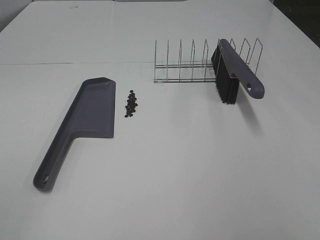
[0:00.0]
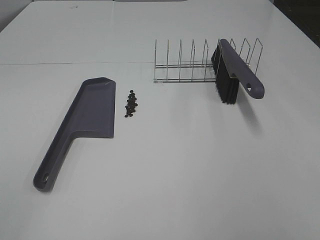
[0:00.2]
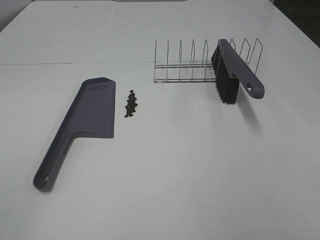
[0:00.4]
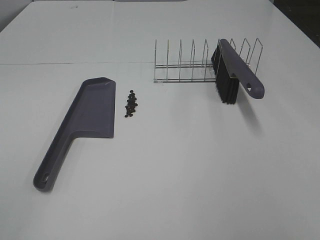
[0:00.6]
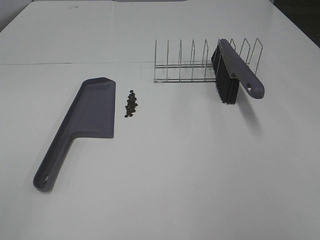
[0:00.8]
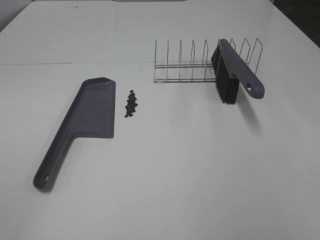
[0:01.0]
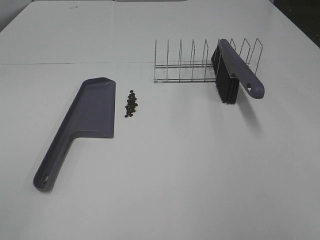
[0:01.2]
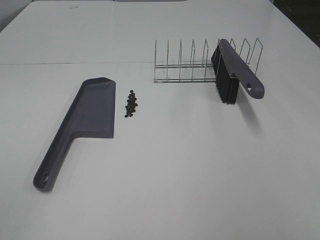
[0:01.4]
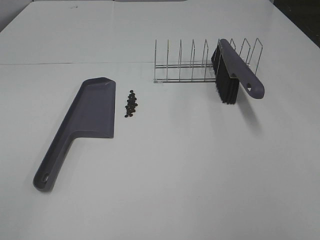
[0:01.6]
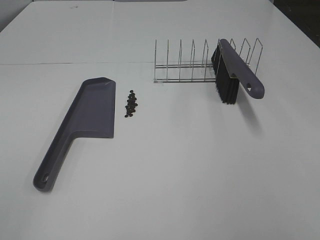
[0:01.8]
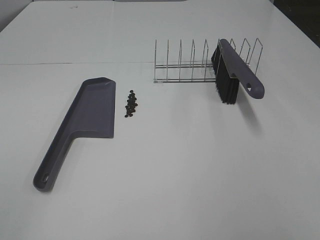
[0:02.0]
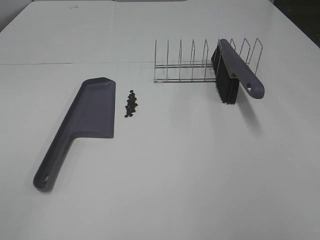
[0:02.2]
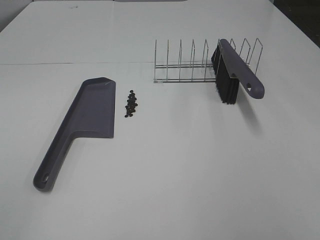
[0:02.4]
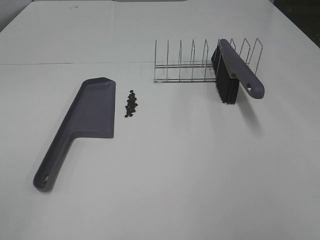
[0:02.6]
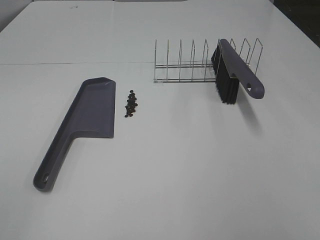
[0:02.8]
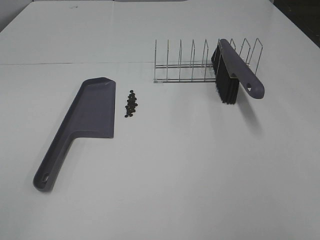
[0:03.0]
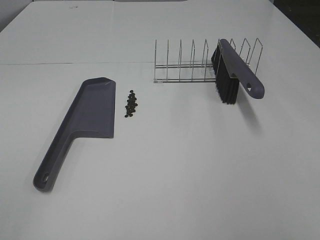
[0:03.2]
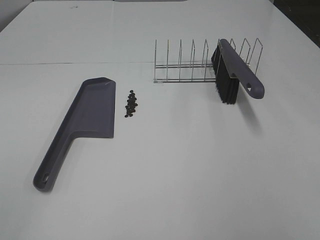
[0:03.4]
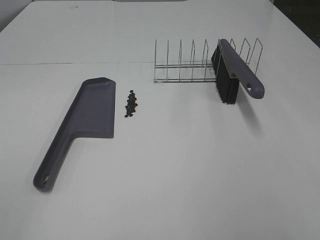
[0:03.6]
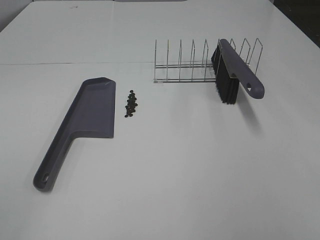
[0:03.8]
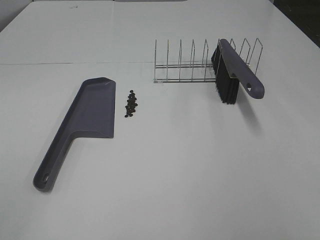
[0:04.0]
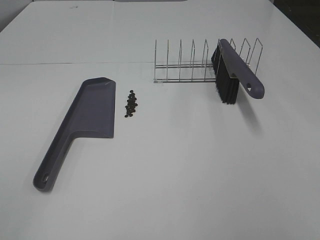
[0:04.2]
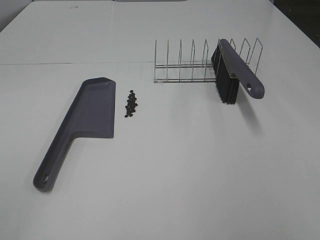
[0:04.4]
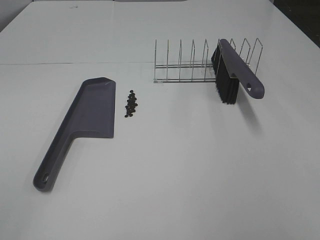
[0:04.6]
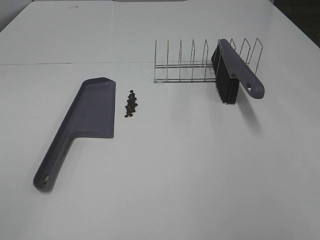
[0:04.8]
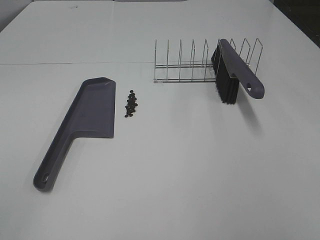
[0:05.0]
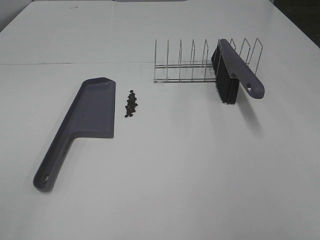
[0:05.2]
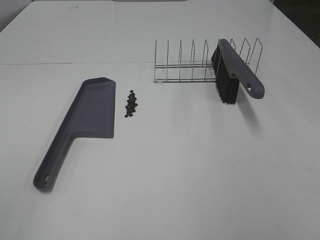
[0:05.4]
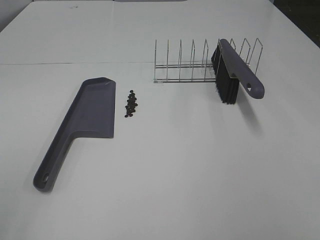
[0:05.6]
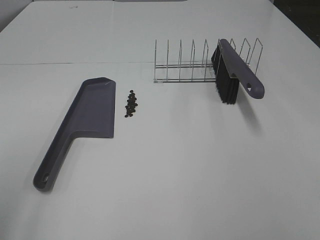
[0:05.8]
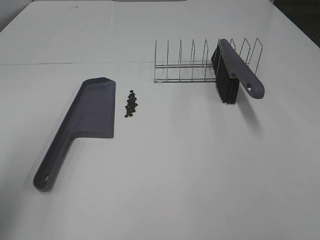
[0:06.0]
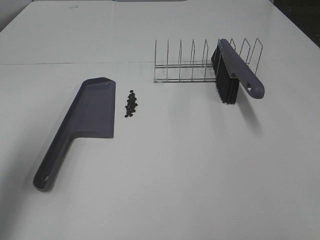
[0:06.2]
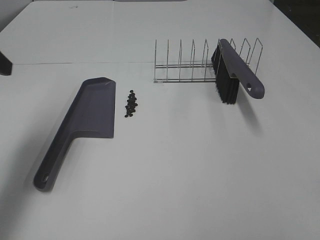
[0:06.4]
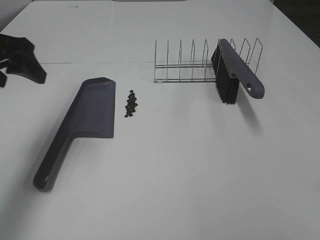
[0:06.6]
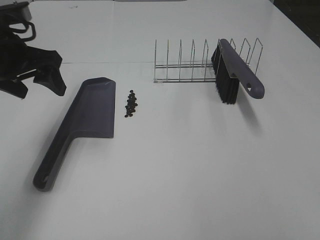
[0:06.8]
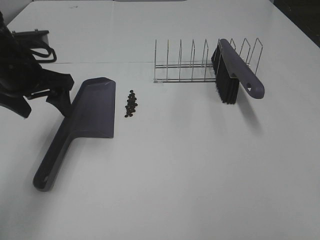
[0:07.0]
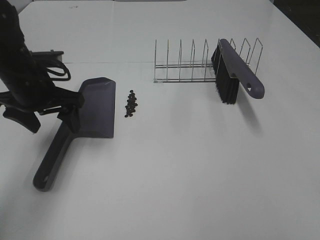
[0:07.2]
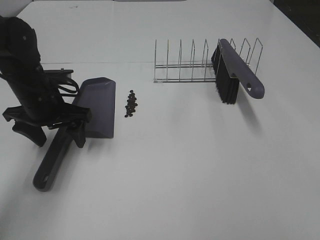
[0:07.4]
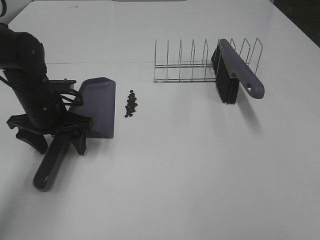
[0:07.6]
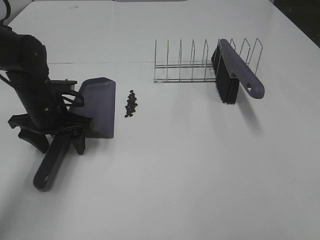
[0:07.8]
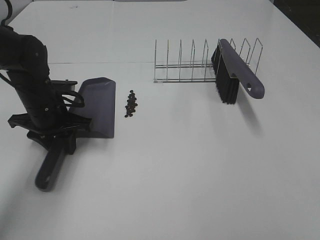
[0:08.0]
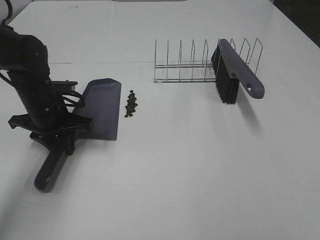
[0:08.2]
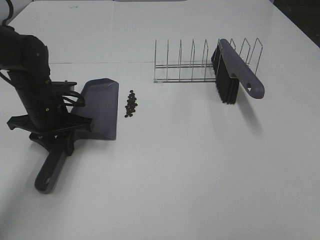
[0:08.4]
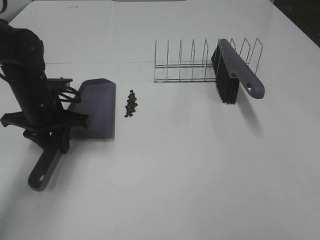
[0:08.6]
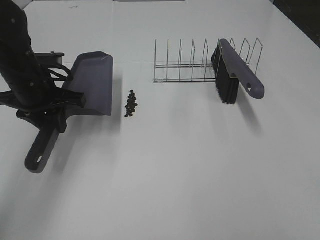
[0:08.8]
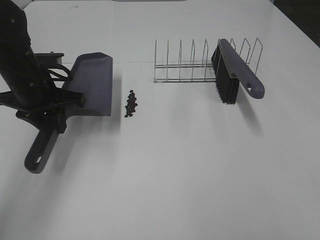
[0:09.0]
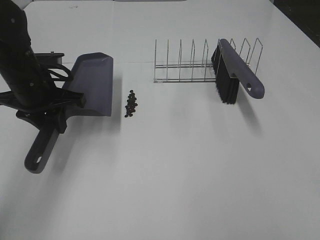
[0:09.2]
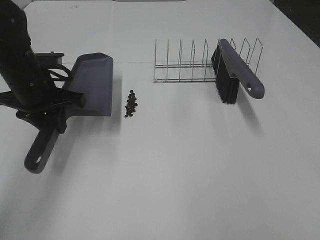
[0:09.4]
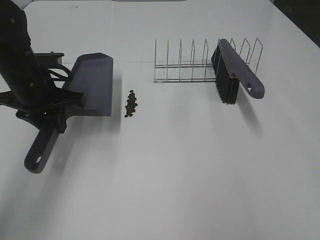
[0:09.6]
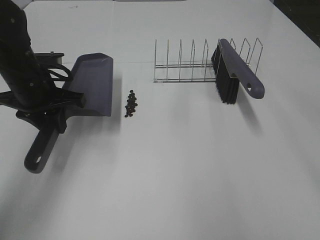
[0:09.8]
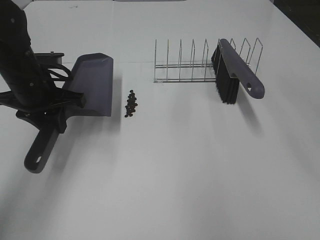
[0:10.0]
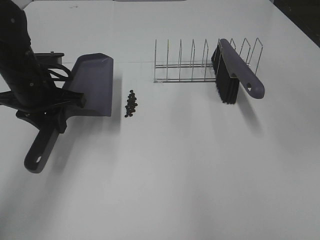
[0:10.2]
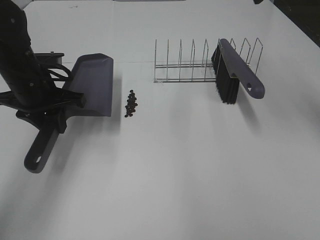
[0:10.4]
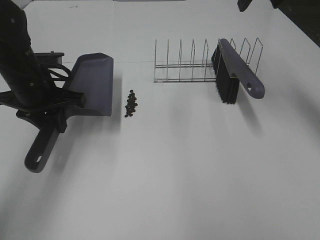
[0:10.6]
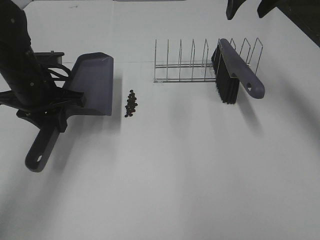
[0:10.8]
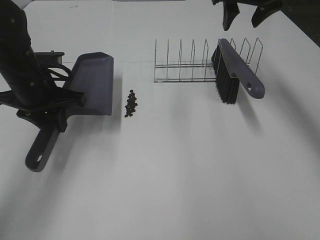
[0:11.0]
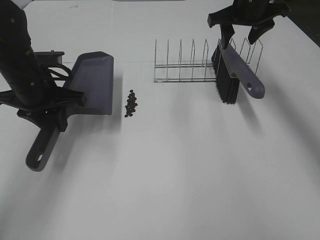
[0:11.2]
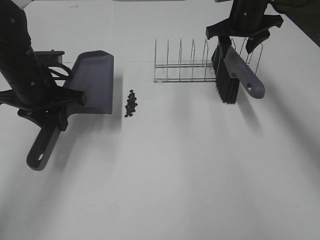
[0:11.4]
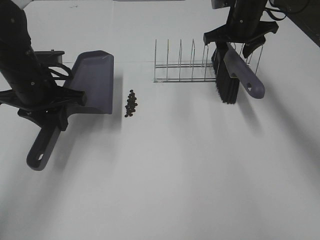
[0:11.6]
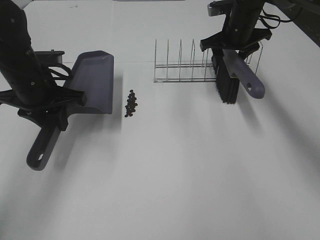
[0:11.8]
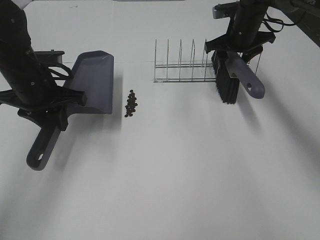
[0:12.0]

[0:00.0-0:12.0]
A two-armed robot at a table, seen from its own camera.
Task of the whole recording: Sweep Coffee Bean.
Step, 0.0 to 8.0 s: Left hand: grab the dustpan.
0.0 to 4.4 s: The two grippers keep their place.
4.4 to 6.0 s: The left gripper is displaced forward by approximately 15 cm.
6.0 to 7.6 s: The left gripper moves forward, downward and to the right, about 30 cm.
7.6 to 9.0 s: The left gripper travels upward by some 5 cm, and closes up.
9.0 to 10.4 s: The right gripper heads forward, covering roughly 40 cm.
10.4 to 12.0 s: The right gripper shifts some 25 cm downward and forward.

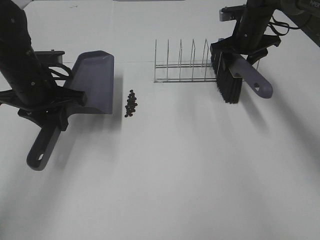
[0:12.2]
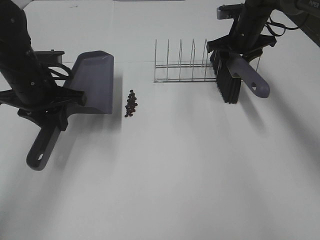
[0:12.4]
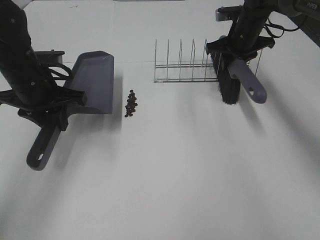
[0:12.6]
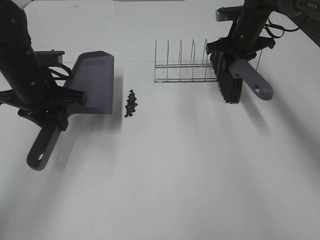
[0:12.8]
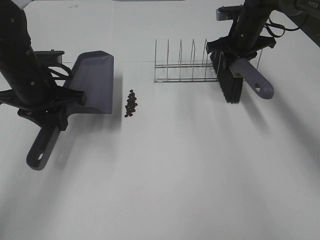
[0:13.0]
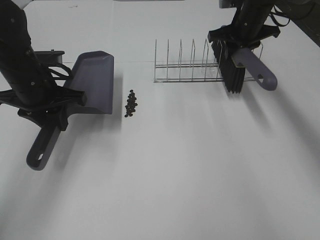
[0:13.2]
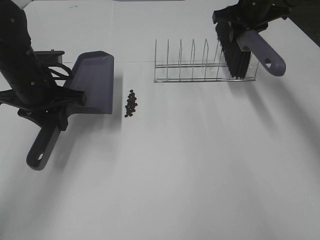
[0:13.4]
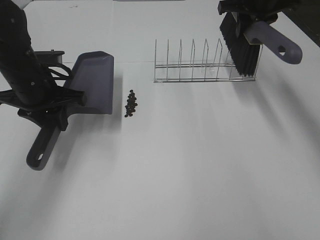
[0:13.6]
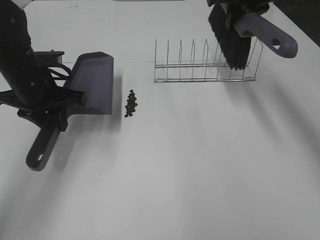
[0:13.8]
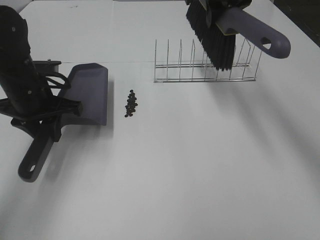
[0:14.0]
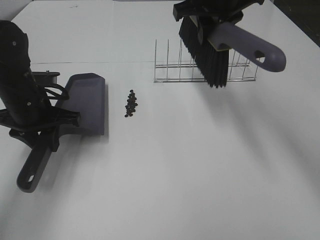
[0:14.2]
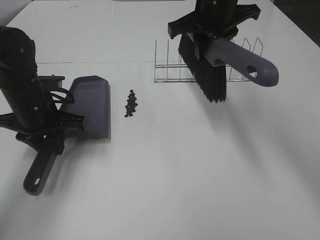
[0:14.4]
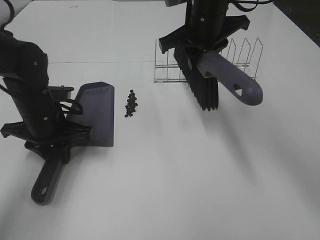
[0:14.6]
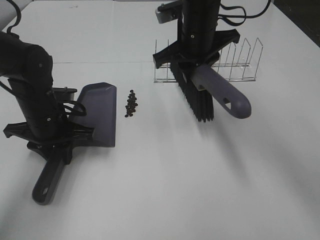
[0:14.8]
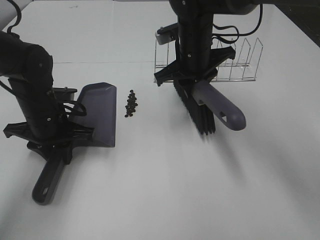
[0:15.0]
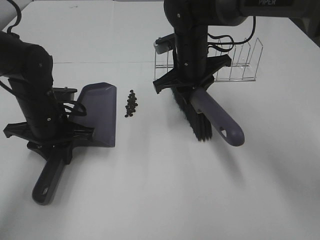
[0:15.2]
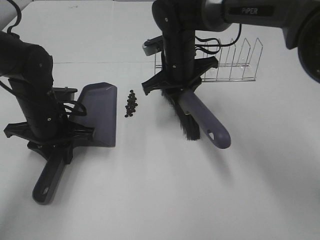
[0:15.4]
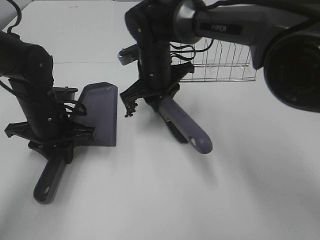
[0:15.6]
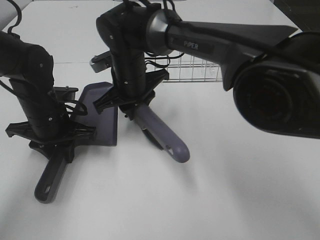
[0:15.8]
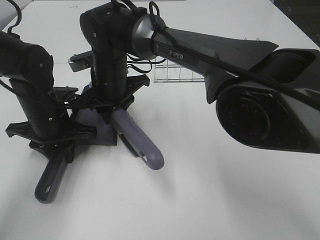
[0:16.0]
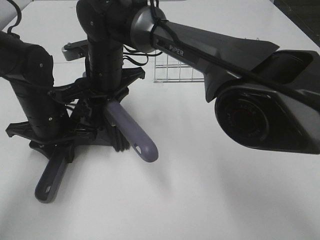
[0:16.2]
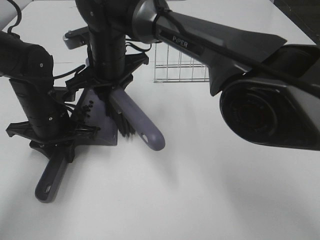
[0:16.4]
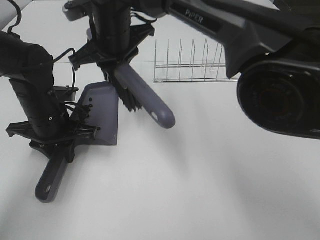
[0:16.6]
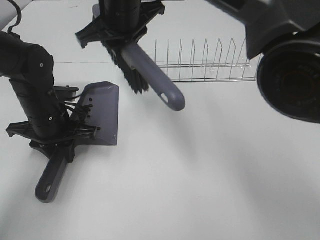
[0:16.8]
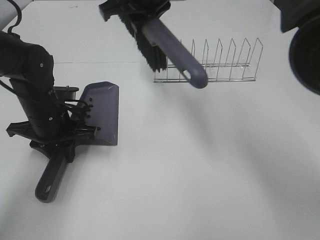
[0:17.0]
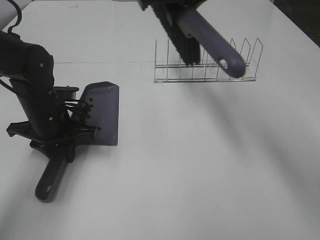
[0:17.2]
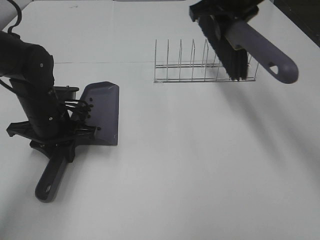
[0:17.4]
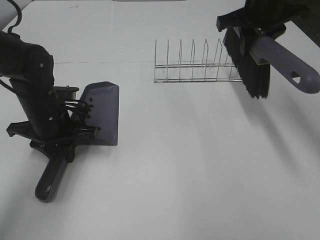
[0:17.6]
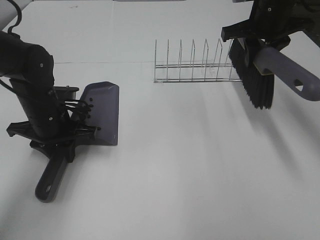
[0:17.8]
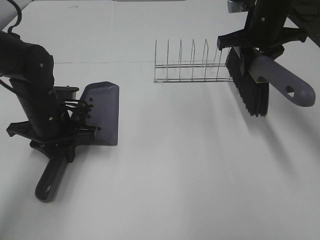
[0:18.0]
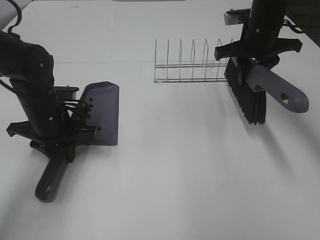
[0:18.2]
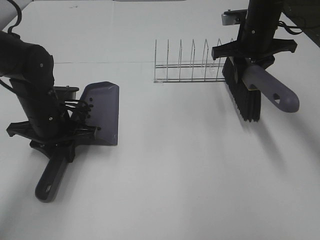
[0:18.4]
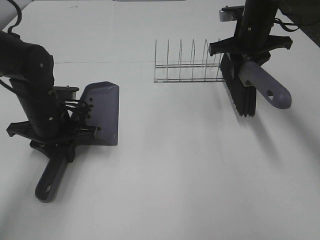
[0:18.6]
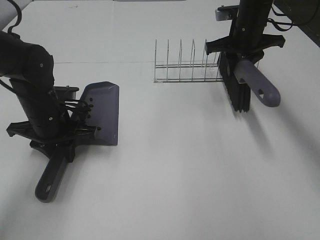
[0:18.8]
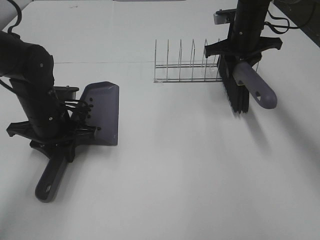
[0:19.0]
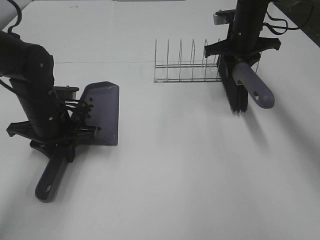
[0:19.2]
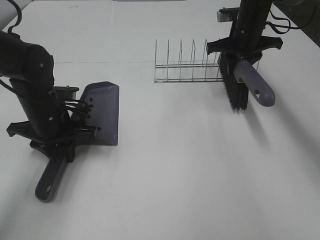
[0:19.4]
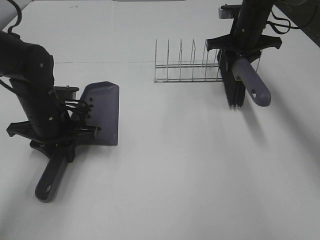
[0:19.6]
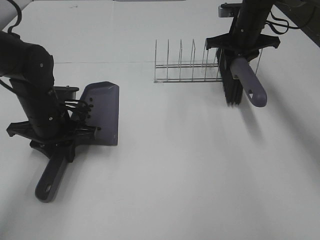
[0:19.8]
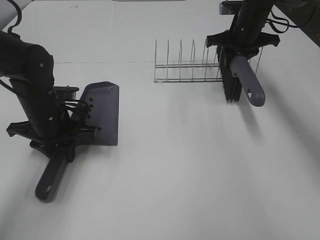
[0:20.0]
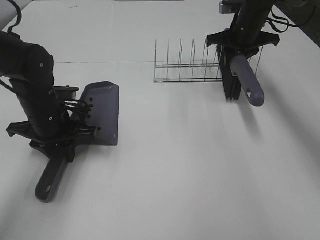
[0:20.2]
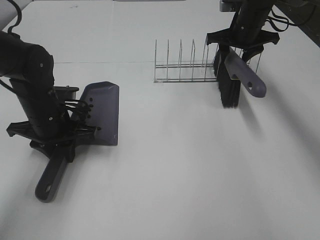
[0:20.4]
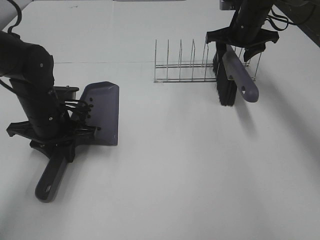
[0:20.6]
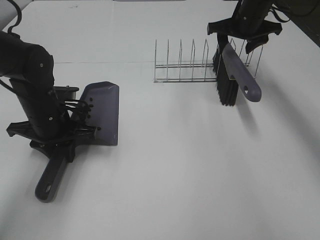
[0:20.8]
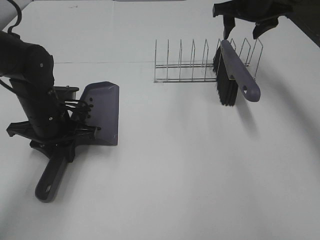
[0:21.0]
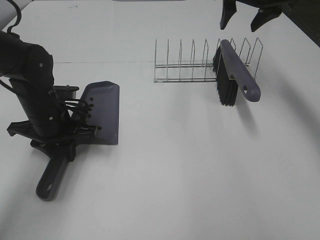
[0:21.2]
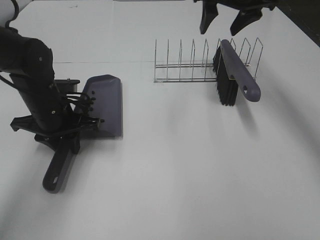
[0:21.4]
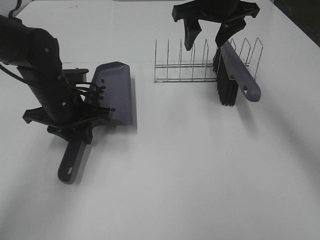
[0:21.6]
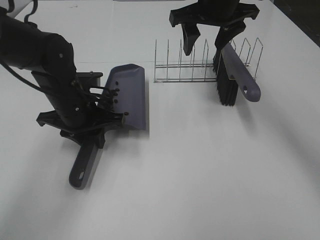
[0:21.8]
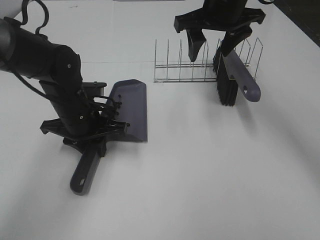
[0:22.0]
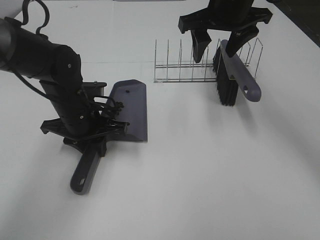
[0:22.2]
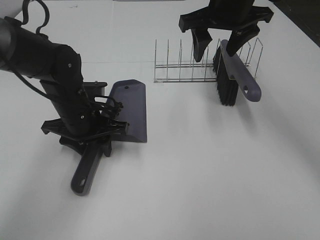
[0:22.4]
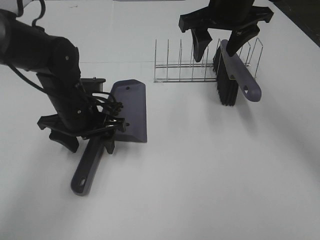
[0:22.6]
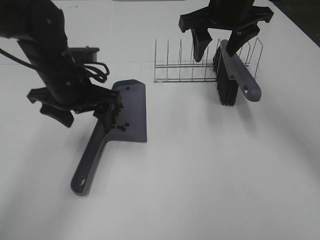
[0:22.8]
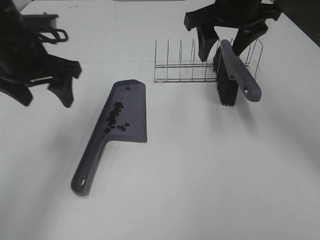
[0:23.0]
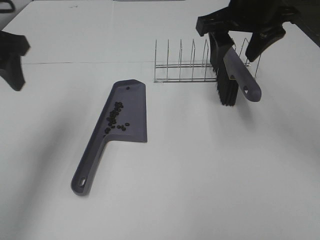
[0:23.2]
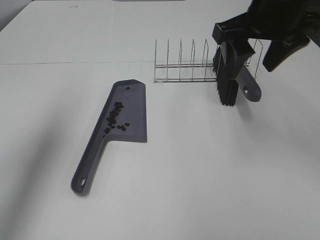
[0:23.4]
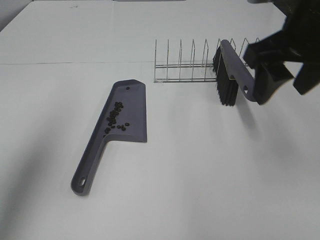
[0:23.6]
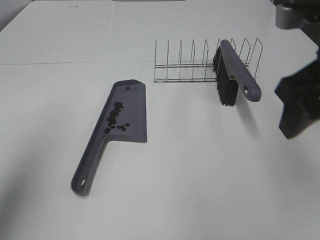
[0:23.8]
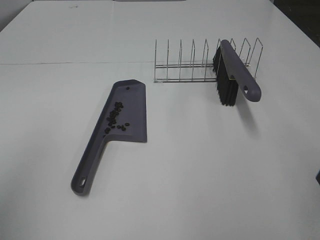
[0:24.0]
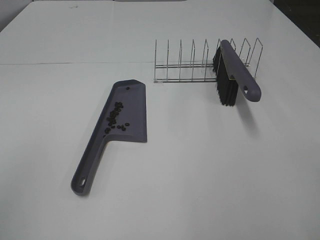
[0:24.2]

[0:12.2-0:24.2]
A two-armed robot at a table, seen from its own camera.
Task of the whole recording: Sweep Coffee Bean.
Step, 12.2 to 14.6 s: Left hand: move the dustpan to the left side of the coffee beans.
Step, 12.8 to 16.6 s: Right hand:sweep the coffee beans into the dustpan.
Step, 16.8 to 20.6 s: Right hand:place the broom on the rack.
Step, 20.8 to 22.6 s: Left hand:place the dustpan on the table.
12.2 to 13.8 s: The right gripper shifts approximately 15 cm upward, and closes up.
13.8 to 15.2 s: The right gripper travels downward, to the left and backward by about 20 cm, while the left gripper is displaced downward by some 5 cm.
15.2 to 16.6 s: The right gripper shifts roughly 15 cm to the left and upward.
16.6 to 18.2 s: The right gripper heads to the right, covering some 25 cm.
18.2 to 19.8 s: The right gripper travels forward by roughly 5 cm.
19.8 to 21.2 s: The right gripper goes some 10 cm upward, and opens.
21.2 to 22.6 s: The right gripper is displaced backward and to the left by some 10 cm, while the left gripper is displaced to the right by roughly 5 cm, and opens its fingers.
22.6 to 24.2 s: The right gripper shifts some 35 cm backward and to the right; the left gripper shifts some 40 cm backward, upward and to the left.
